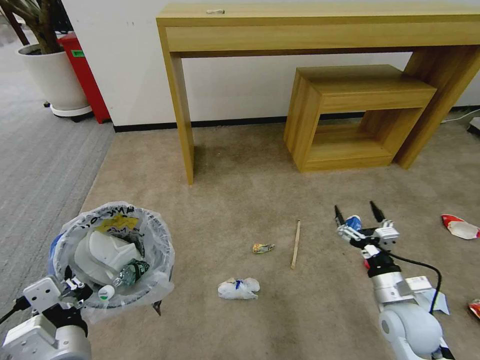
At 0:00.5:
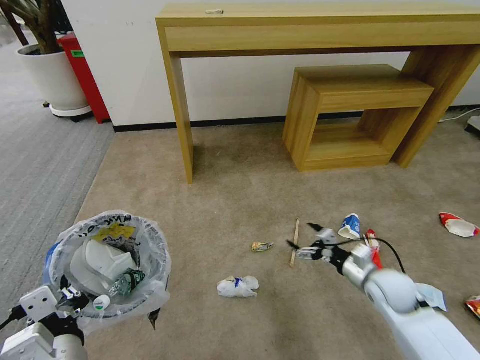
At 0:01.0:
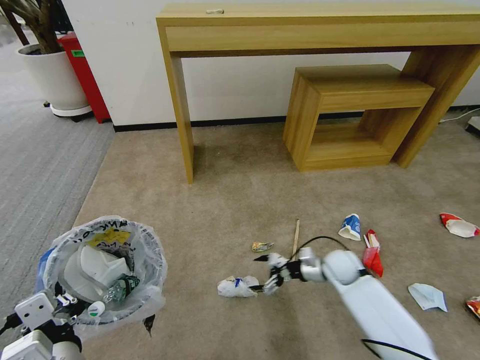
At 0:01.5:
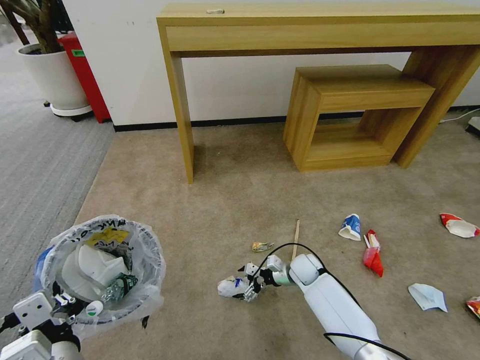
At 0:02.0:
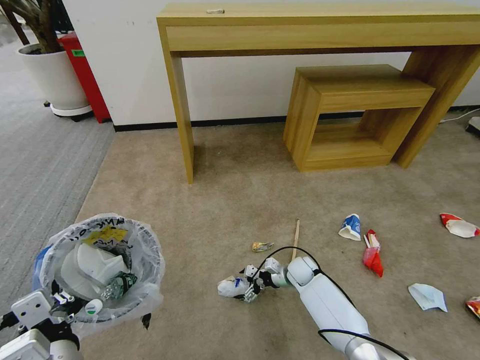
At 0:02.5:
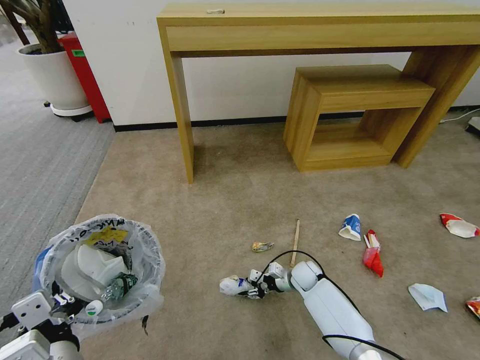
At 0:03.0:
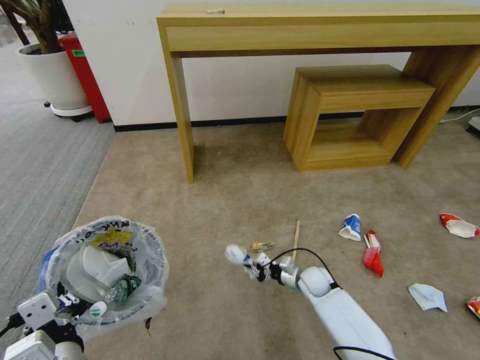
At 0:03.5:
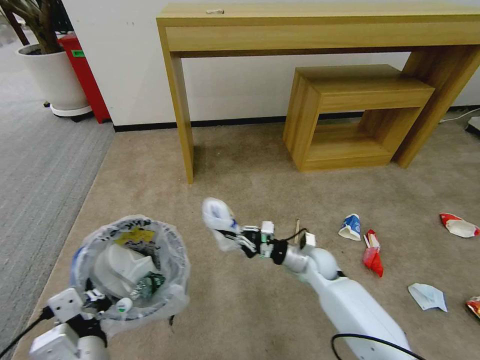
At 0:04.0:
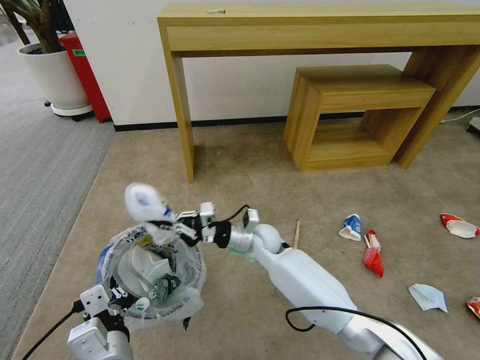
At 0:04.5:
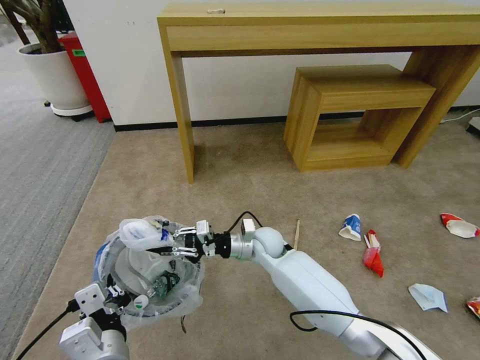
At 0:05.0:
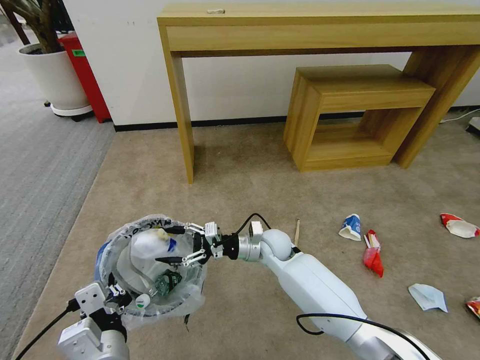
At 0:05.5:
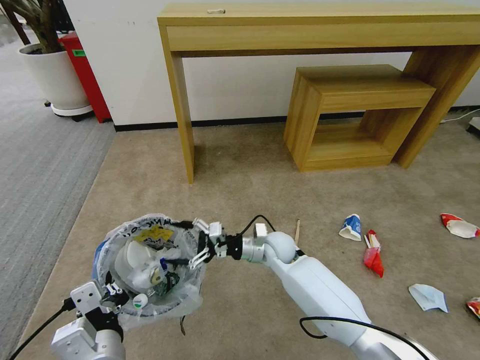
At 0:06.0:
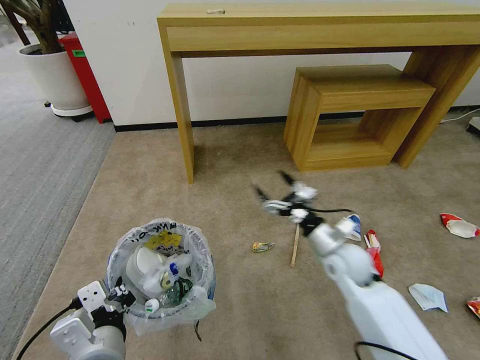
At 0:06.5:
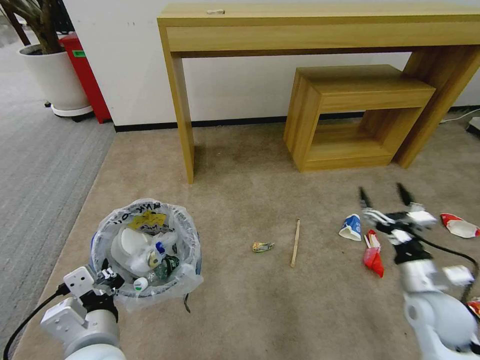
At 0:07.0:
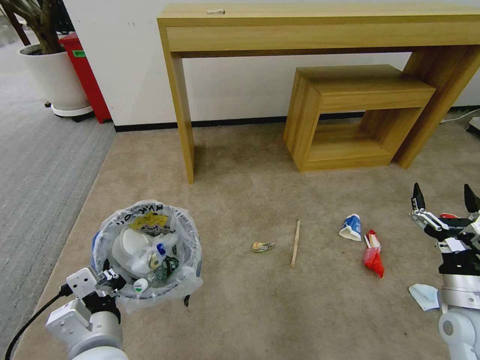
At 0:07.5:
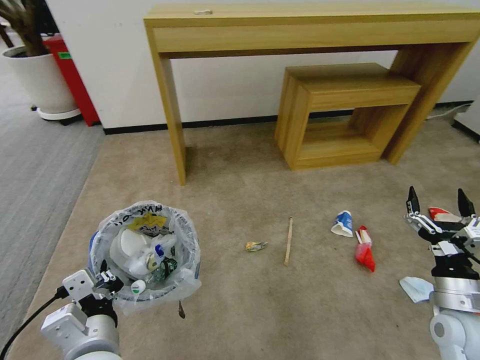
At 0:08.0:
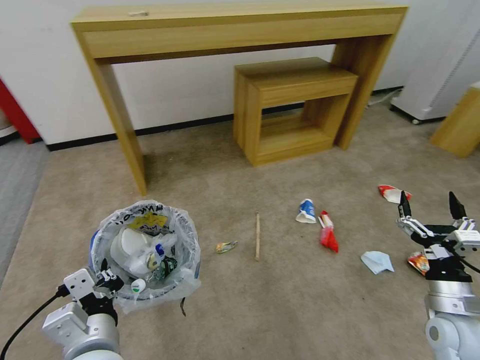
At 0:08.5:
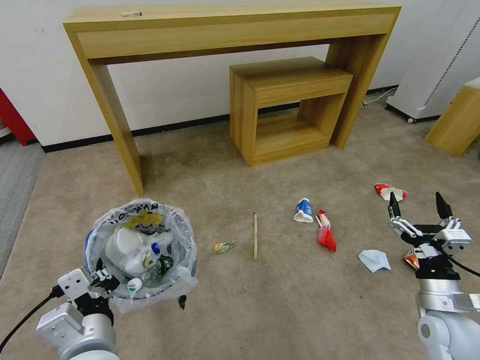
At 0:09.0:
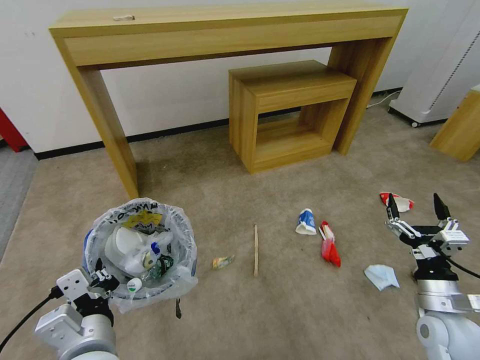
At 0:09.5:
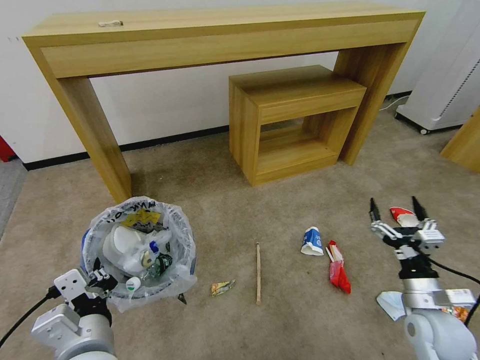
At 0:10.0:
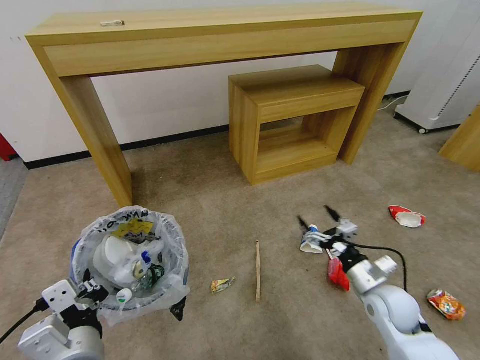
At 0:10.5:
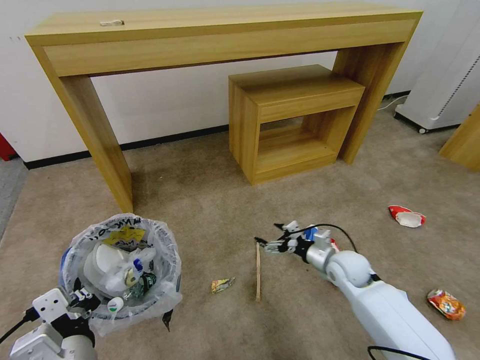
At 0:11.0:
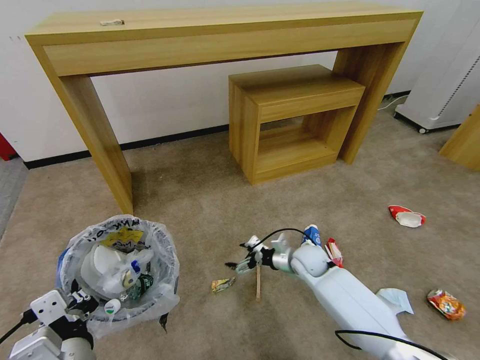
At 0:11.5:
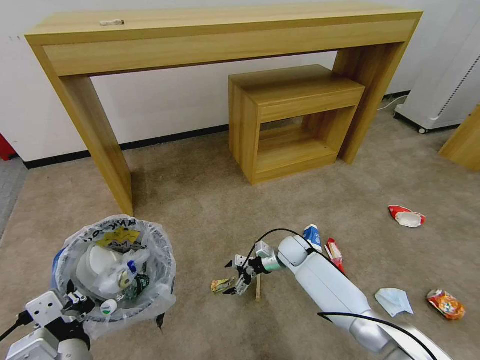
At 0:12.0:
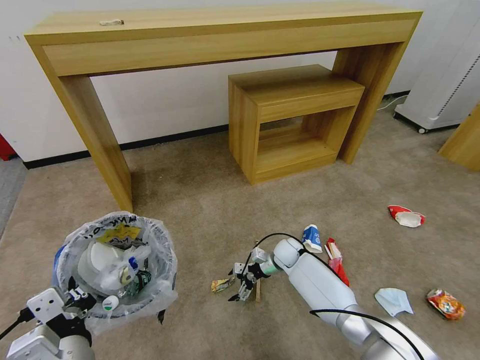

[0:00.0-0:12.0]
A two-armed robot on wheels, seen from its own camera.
Task of the whole recording: Pick up the trash bin and place the garbage on the floor into it.
0:00.0 to 0:02.0: The right gripper is displaced forward, downward and to the left by about 30 cm.
0:02.0 to 0:04.0: The right gripper shifts about 25 cm upward and to the left, and closes up; the left gripper moves about 5 cm.
0:04.0 to 0:06.0: The right gripper shifts roughly 20 cm to the right, and opens up.
0:06.0 to 0:08.0: The right gripper goes approximately 20 cm backward and to the right.
0:08.0 to 0:10.0: The right gripper moves forward, to the left and downward, approximately 10 cm.
0:10.0 to 0:12.0: The right gripper travels forward, to the left and downward by some 30 cm.

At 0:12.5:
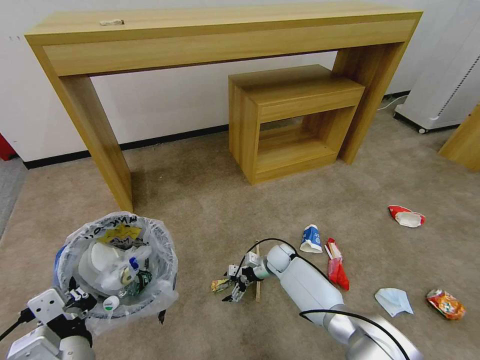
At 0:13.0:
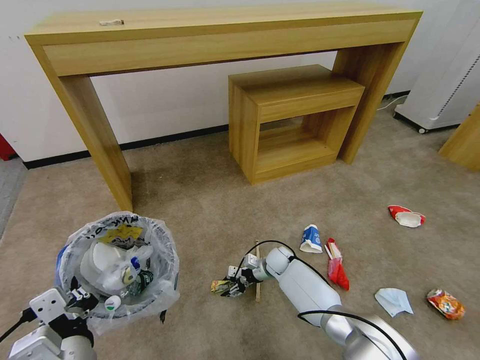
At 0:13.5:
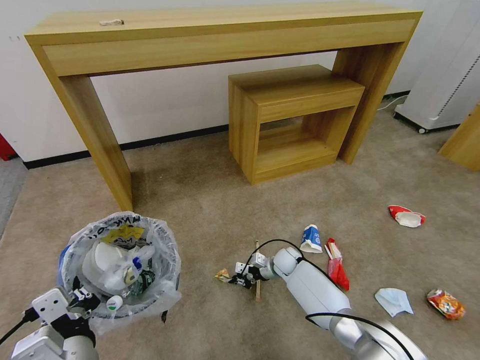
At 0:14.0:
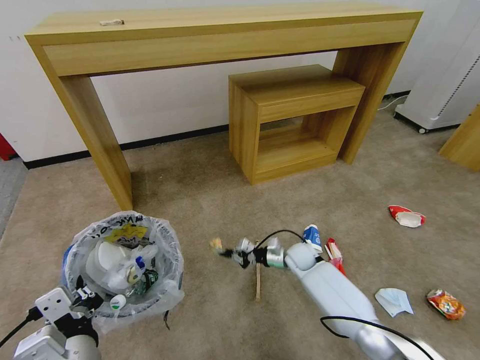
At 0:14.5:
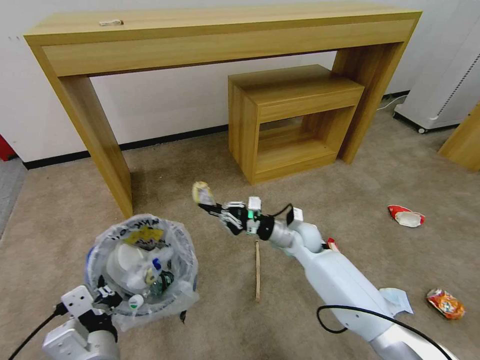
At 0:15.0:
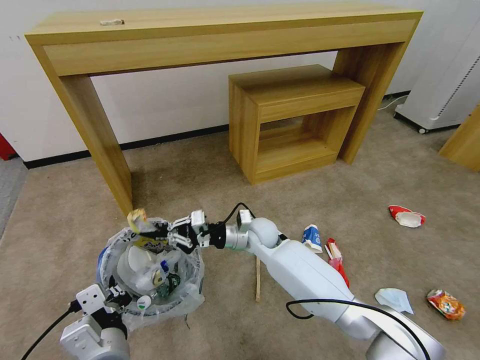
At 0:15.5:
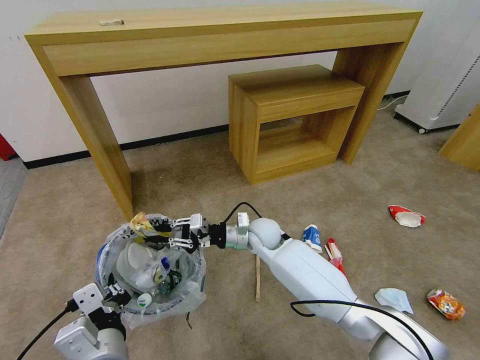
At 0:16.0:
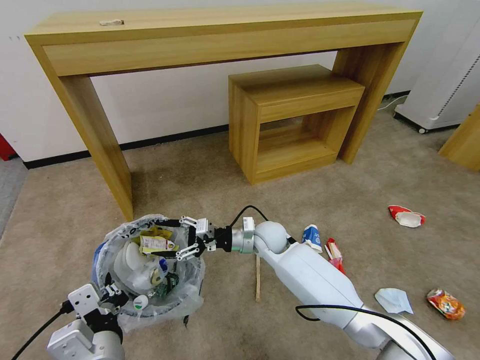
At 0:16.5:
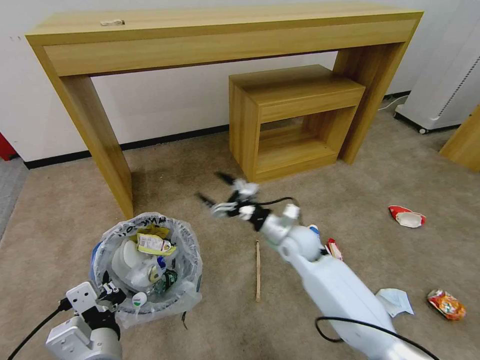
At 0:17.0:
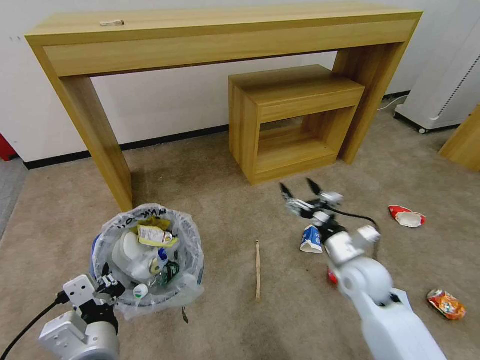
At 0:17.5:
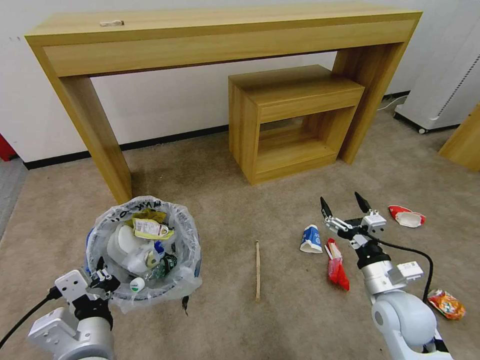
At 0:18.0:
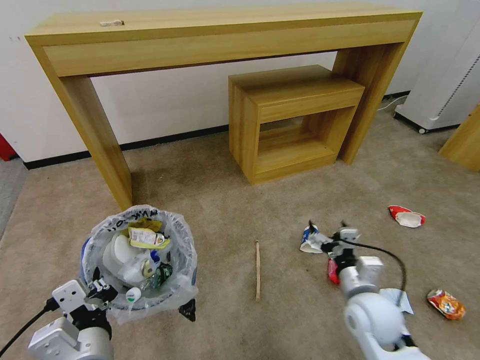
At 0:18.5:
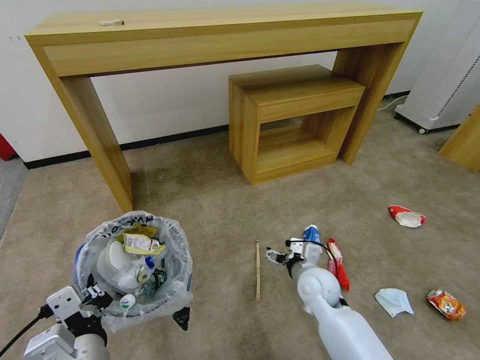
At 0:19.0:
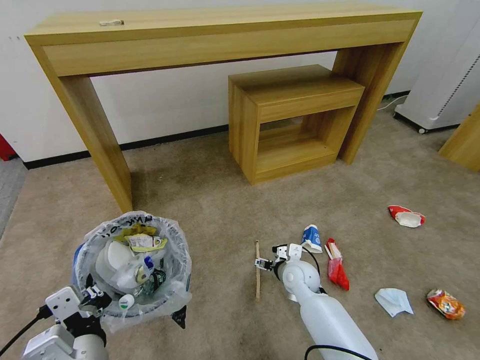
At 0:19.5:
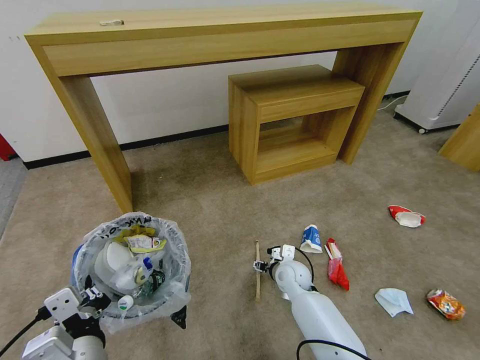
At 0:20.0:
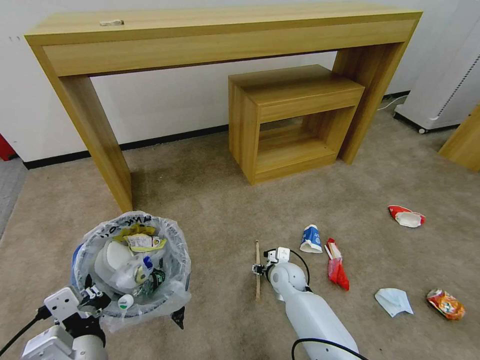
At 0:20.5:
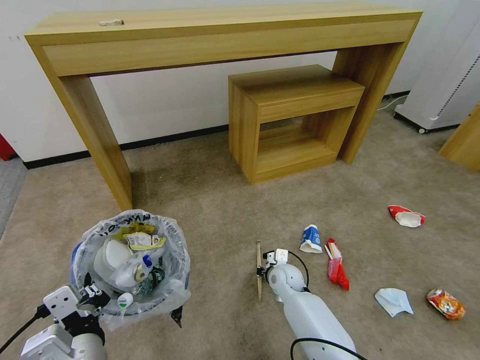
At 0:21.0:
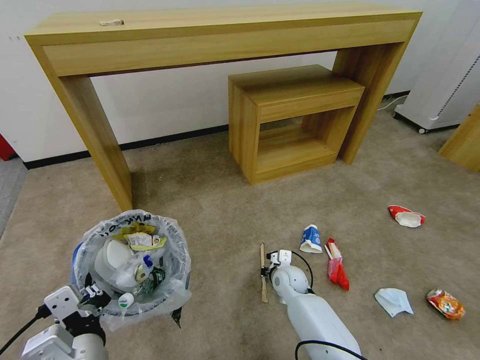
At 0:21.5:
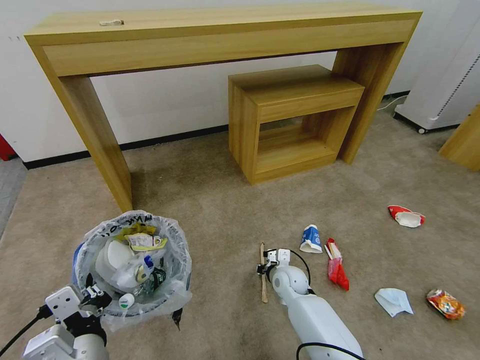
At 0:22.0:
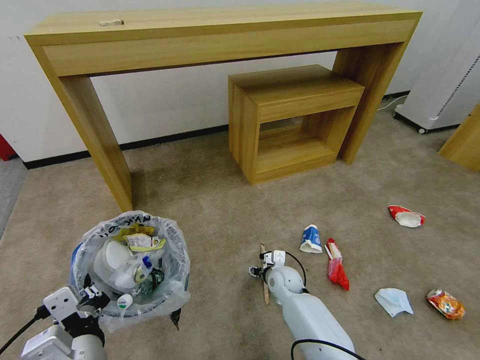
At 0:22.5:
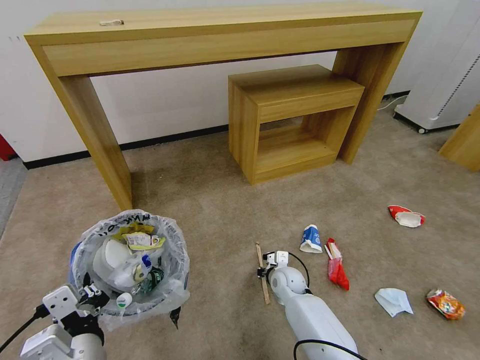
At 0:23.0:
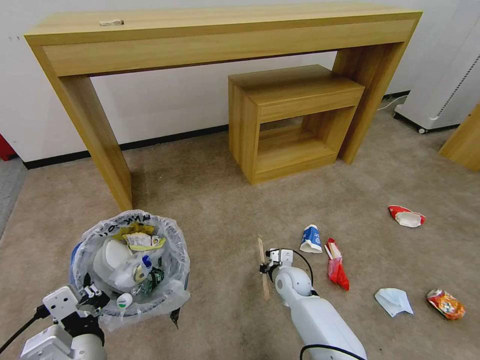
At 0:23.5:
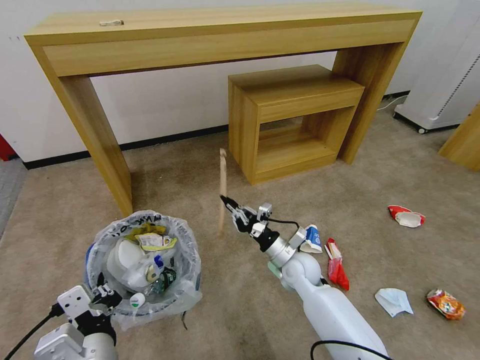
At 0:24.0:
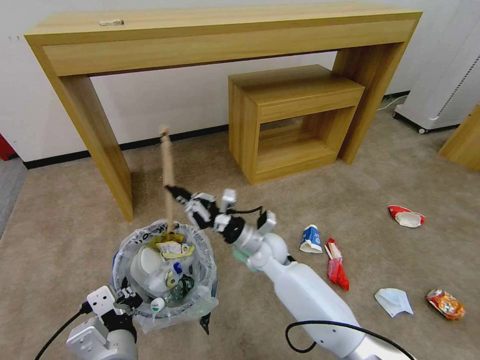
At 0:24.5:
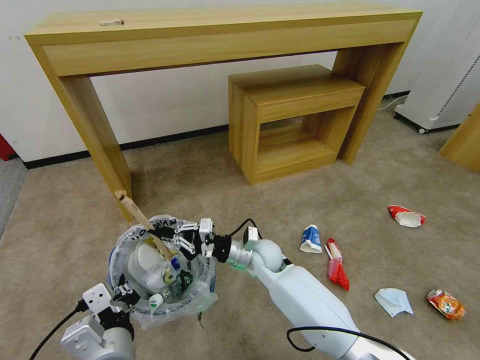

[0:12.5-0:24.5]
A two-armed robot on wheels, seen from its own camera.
Task of the whole recording: Pick up the trash bin and place the garbage on the floor into it.
0:12.5 to 0:14.5: The right gripper is displaced upward by roughly 15 cm, and closes.
0:14.5 to 0:16.5: The right gripper goes to the left and returns, approximately 15 cm each way, and opens.
0:16.5 to 0:18.5: The right gripper travels backward and downward by roughly 10 cm.
0:18.5 to 0:20.5: The right gripper travels downward and forward by roughly 10 cm, and closes.
0:20.5 to 0:22.5: The right gripper opens and closes again.
0:22.5 to 0:24.5: The right gripper travels upward and to the left by about 15 cm.

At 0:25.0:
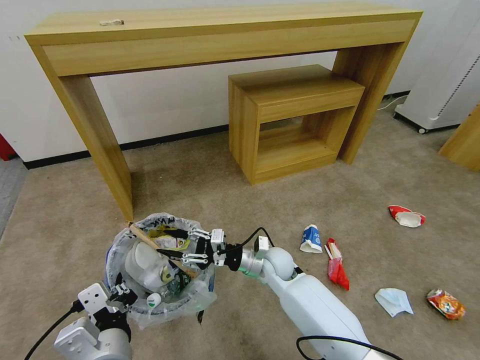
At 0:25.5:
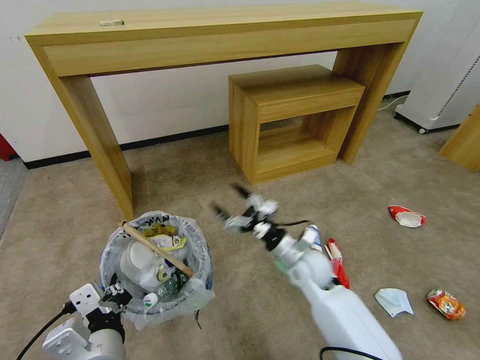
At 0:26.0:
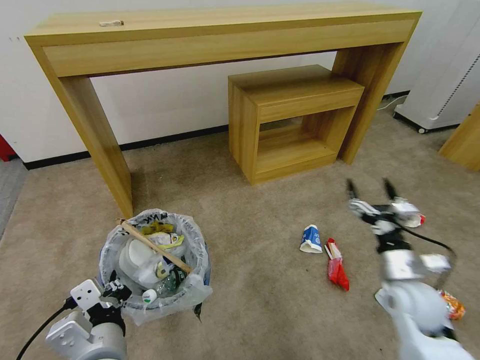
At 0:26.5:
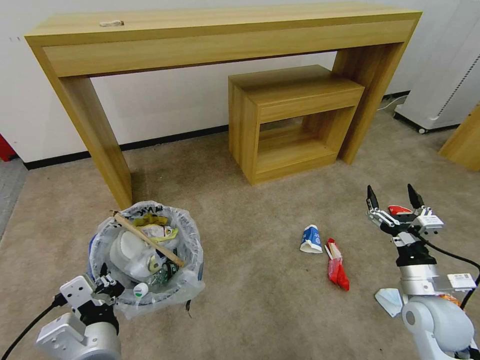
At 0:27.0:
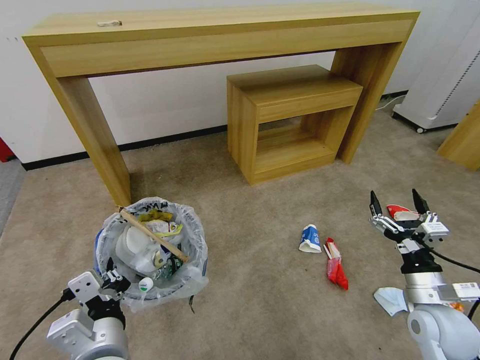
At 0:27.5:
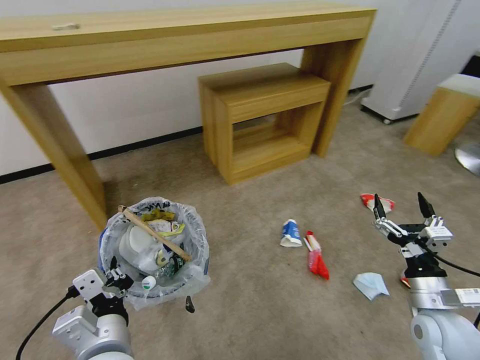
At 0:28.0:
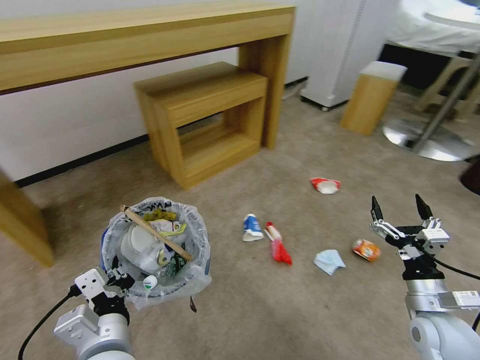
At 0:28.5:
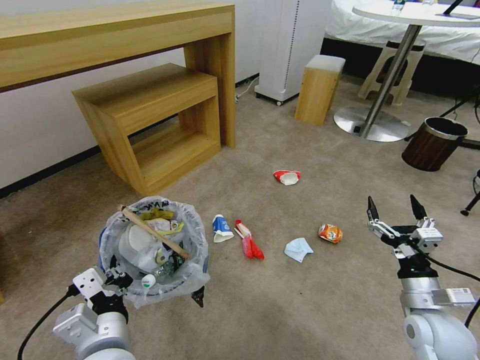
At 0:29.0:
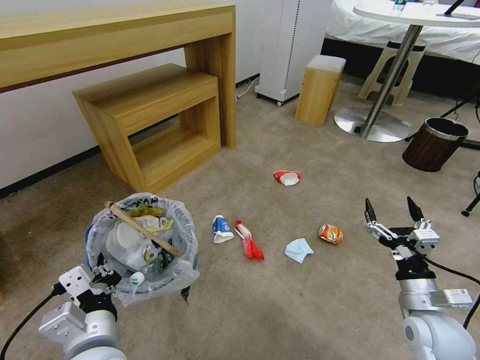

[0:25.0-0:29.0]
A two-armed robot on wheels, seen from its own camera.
Task of the whole recording: Pick up the trash bin and place the garbage on the floor into it.
0:25.0 to 0:27.0: The right gripper moves to the right and backward, roughly 35 cm, and opens.
